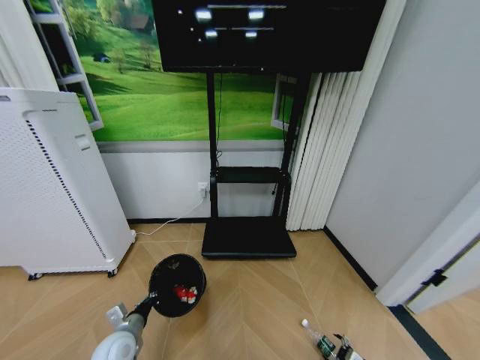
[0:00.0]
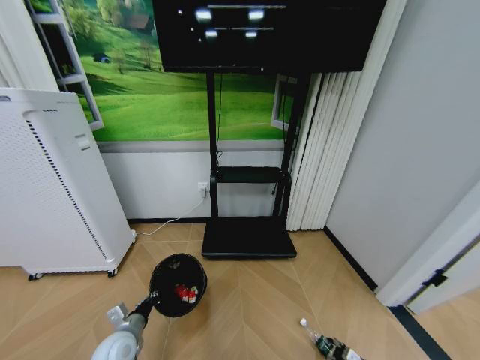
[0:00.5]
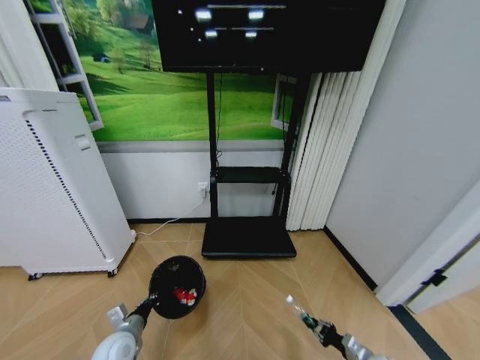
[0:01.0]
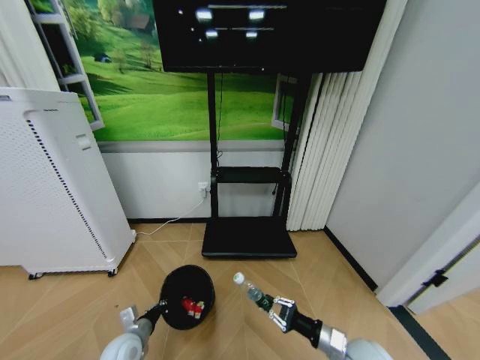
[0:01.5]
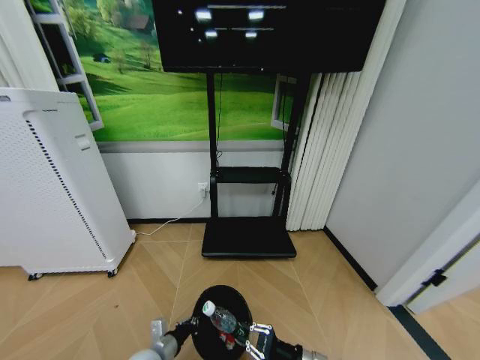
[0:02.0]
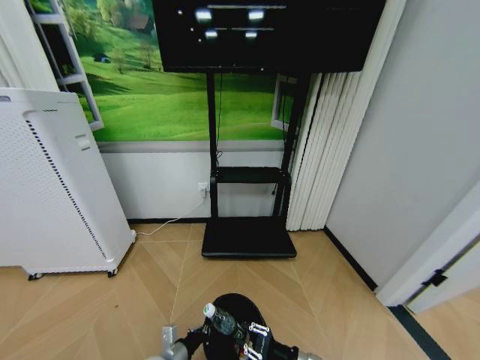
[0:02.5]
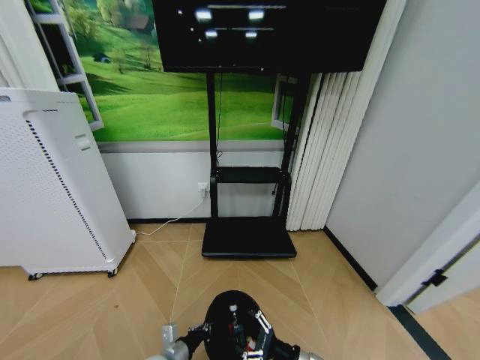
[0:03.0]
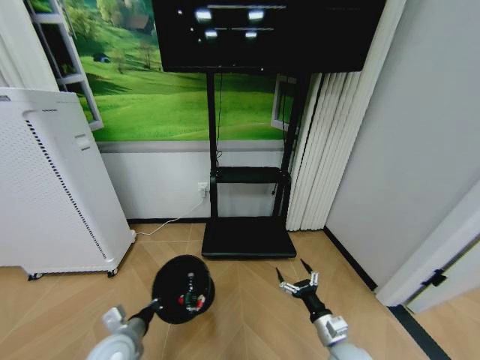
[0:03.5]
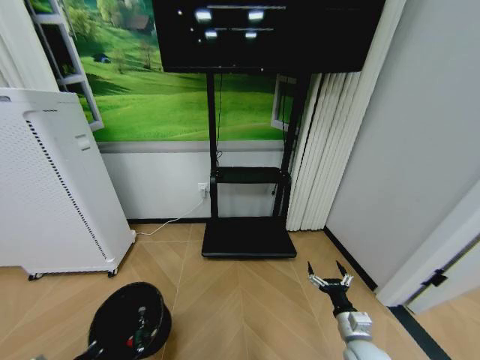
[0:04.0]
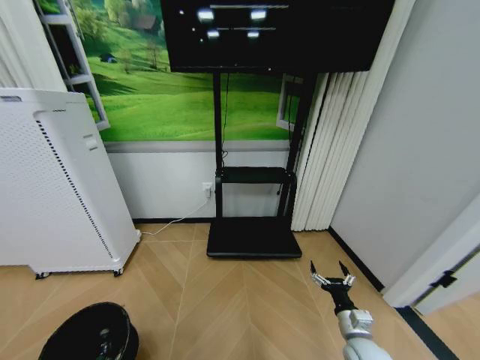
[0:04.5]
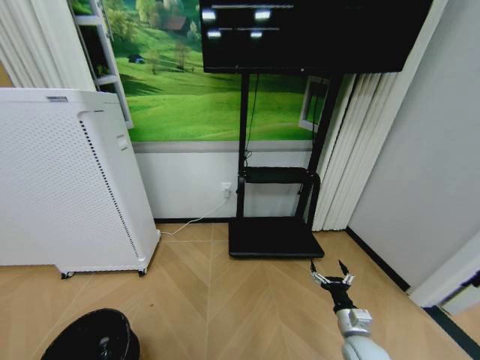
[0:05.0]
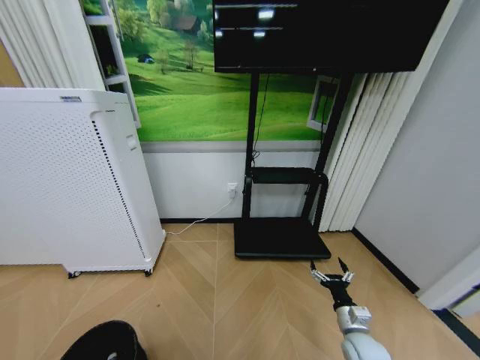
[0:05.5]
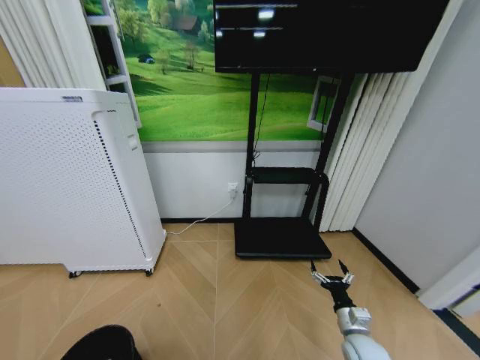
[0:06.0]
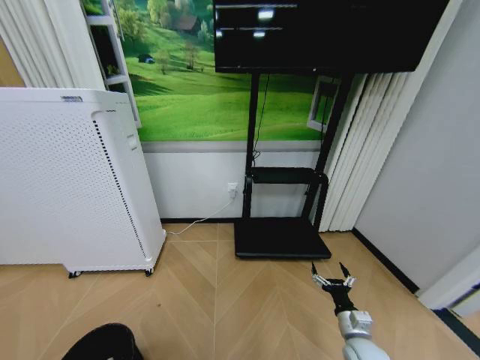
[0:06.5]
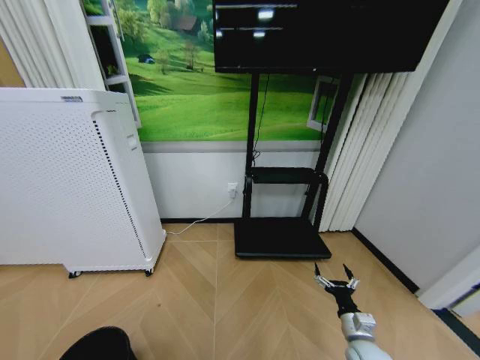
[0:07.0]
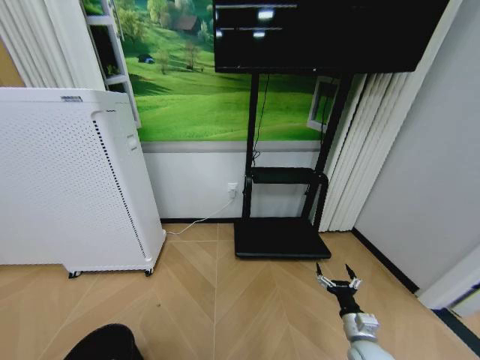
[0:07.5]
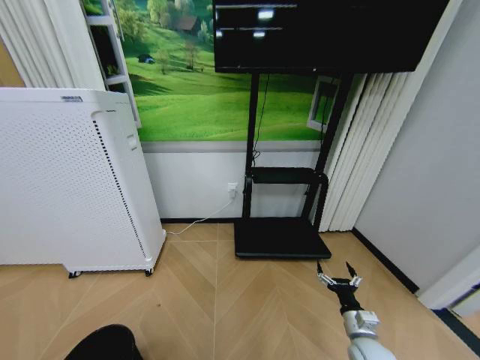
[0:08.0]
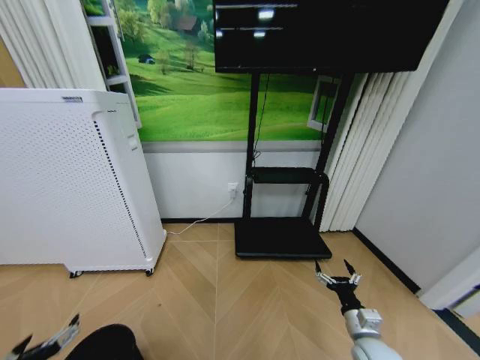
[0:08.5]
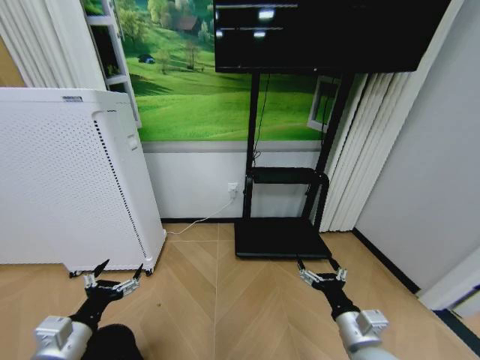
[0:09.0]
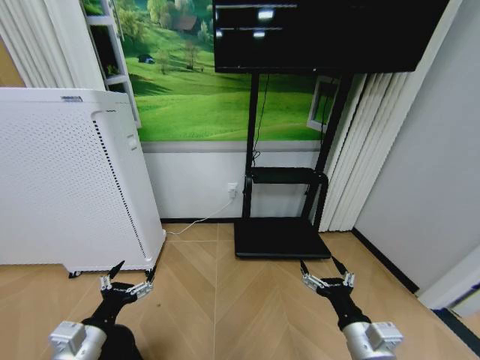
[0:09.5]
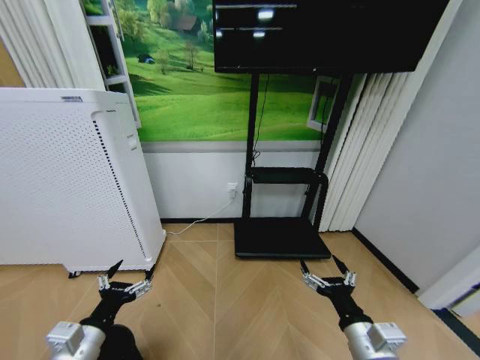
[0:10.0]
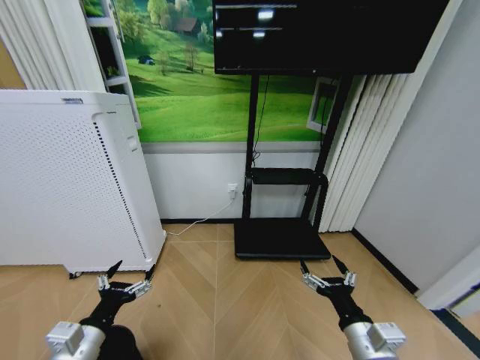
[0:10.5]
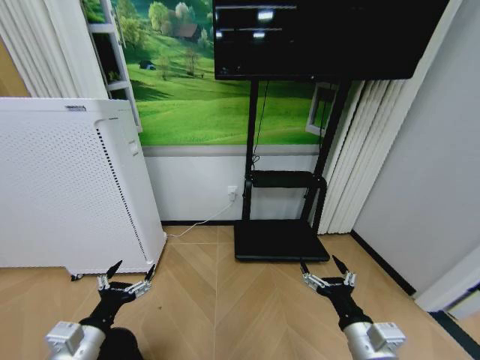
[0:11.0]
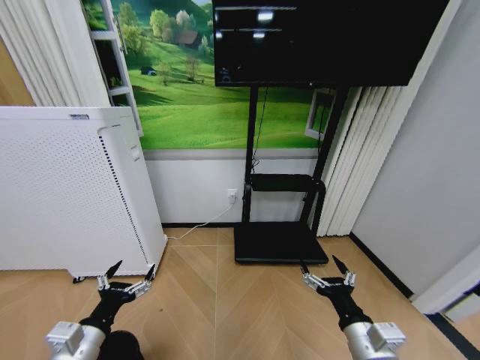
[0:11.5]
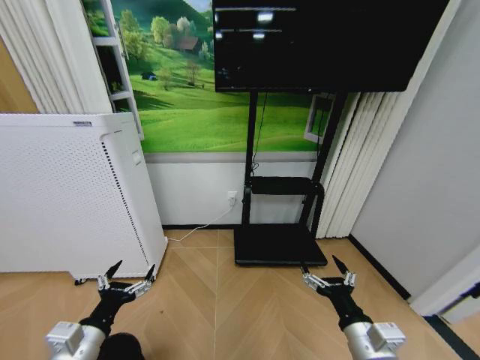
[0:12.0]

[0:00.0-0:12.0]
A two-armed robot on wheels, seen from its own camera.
Task of the whole recording: Pick up the trash bin and place the garbage on the floor into it.
0:00.0 to 0:02.0: The right gripper goes some 30 cm to the left and upward, and closes; the left gripper moves to the right, approximately 5 cm.
0:02.0 to 0:04.0: The right gripper goes about 10 cm to the right, and opens. The left gripper goes roughly 20 cm to the left, upward and backward.
0:04.0 to 0:06.0: The left gripper is displaced backward by roughly 10 cm.
0:08.0 to 0:10.0: The left gripper moves upward, to the right and forward, roughly 20 cm, and opens up, while the right gripper shifts about 20 cm upward, to the left and backward.
0:10.0 to 0:12.0: Both grippers stay put.

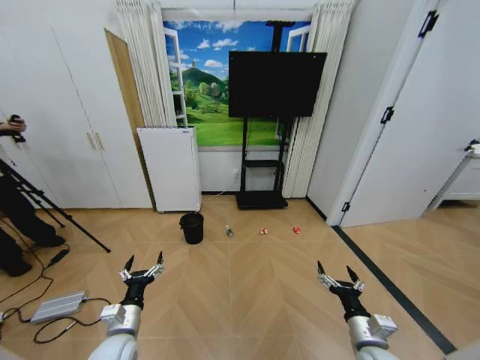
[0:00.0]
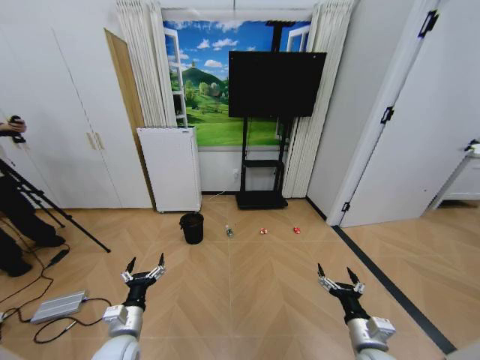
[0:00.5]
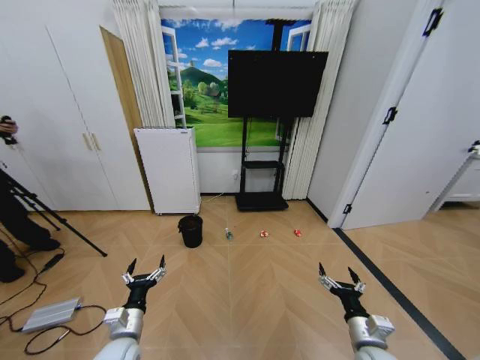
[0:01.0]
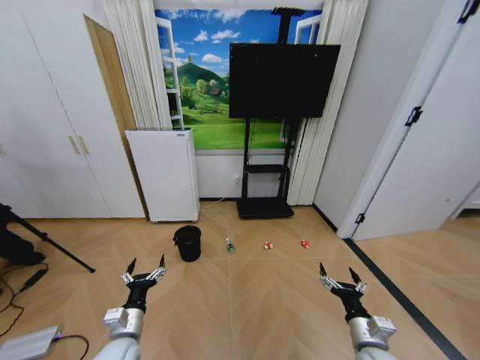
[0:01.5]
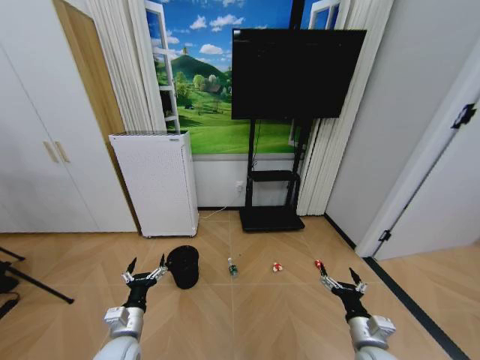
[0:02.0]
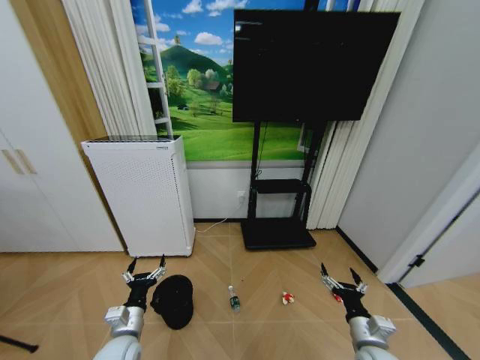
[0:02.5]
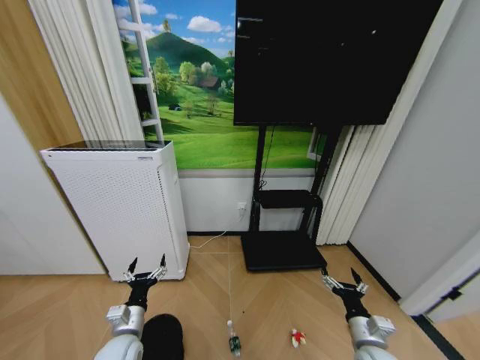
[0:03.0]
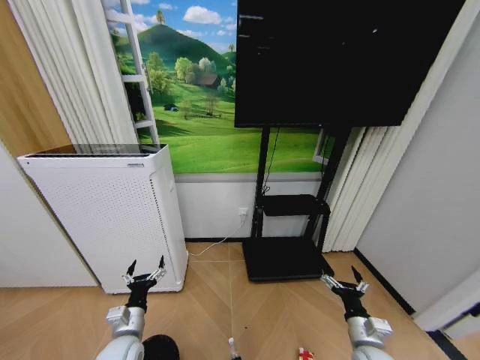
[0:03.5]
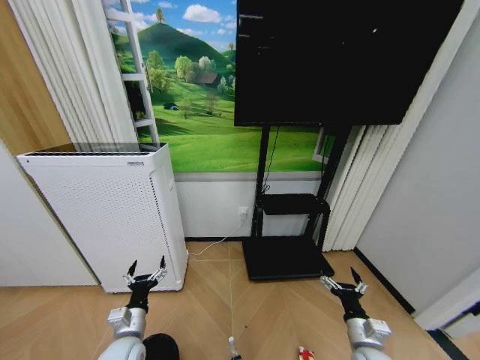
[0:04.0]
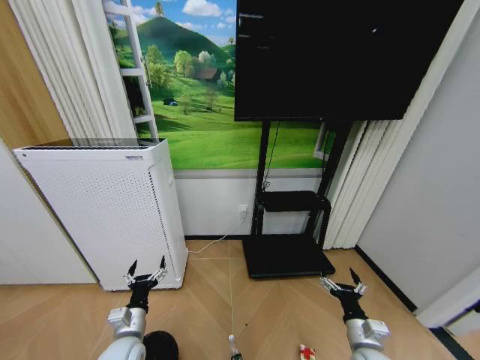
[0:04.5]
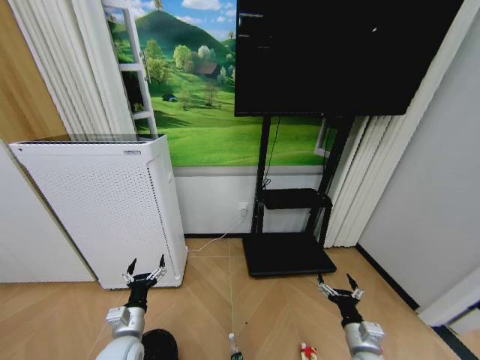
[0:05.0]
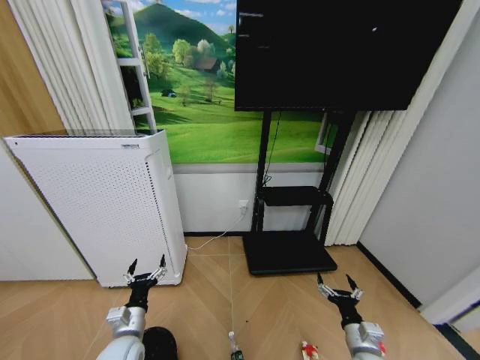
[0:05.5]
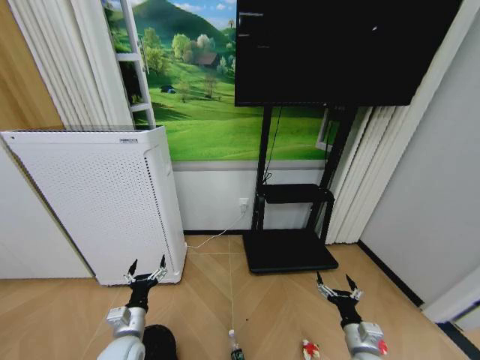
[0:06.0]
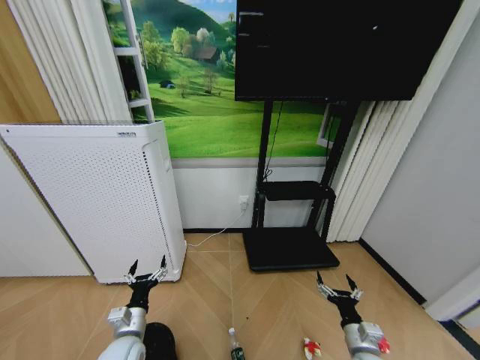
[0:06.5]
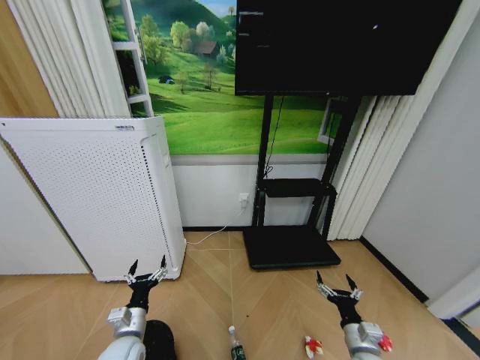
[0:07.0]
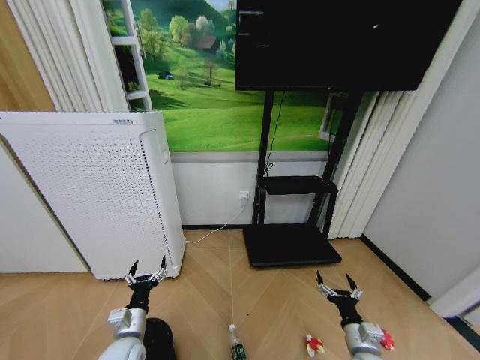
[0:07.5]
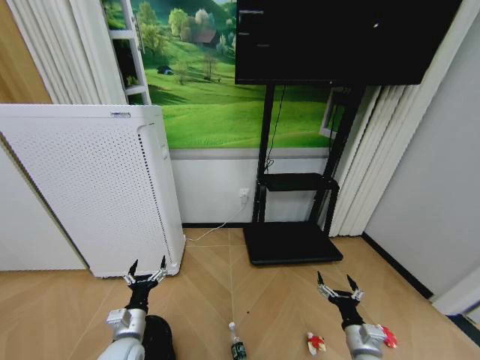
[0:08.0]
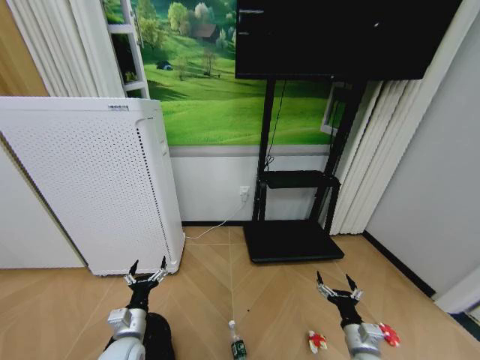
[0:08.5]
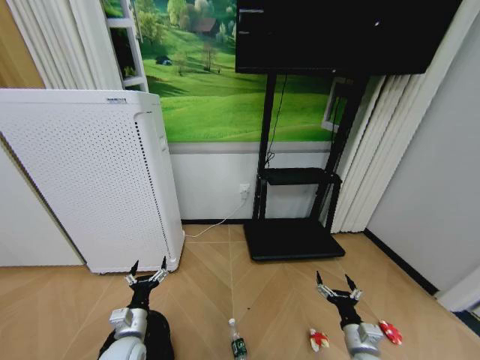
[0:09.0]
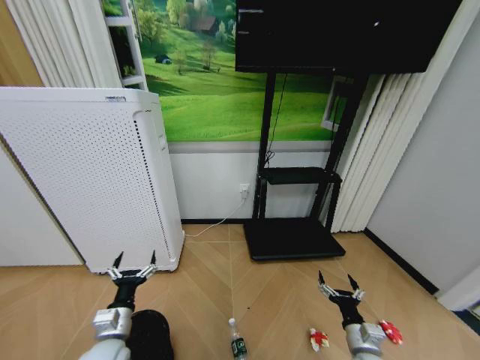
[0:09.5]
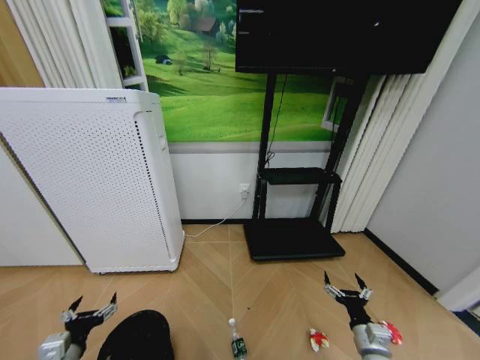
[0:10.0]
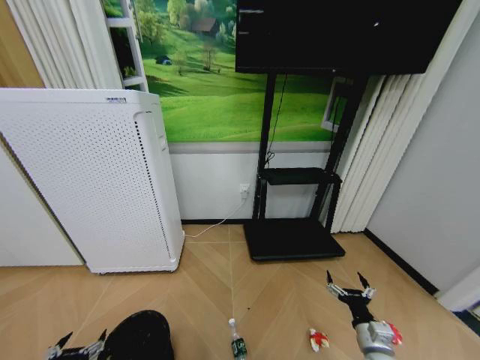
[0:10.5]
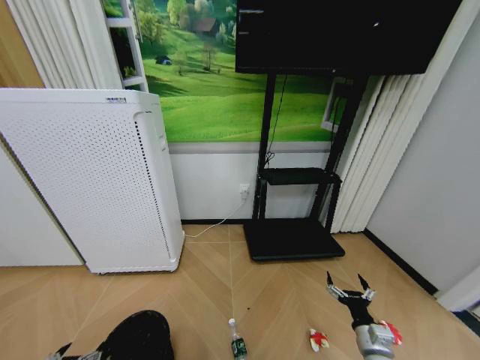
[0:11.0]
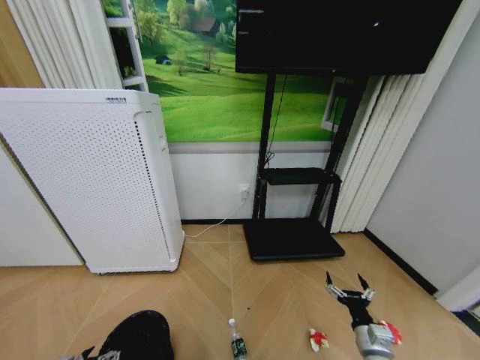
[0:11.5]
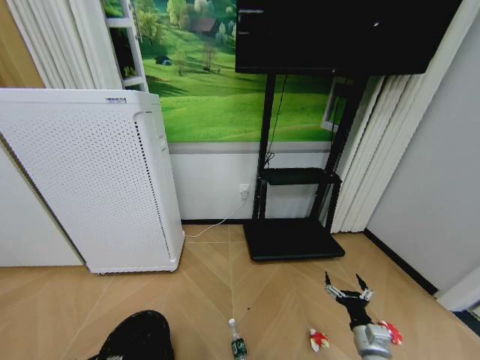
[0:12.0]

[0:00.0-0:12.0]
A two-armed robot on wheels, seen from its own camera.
Task of the whole recording: Pick up the trash bin and place the garbage on the floor into it.
0:06.0 to 0:08.0: The two grippers keep their place.
0:08.0 to 0:10.0: The left gripper is displaced to the left and backward by roughly 10 cm.
0:10.0 to 0:12.0: The left gripper moves downward, roughly 5 cm.

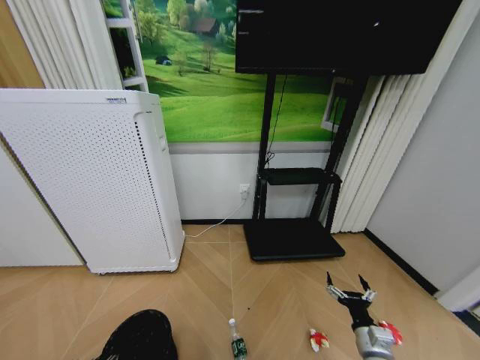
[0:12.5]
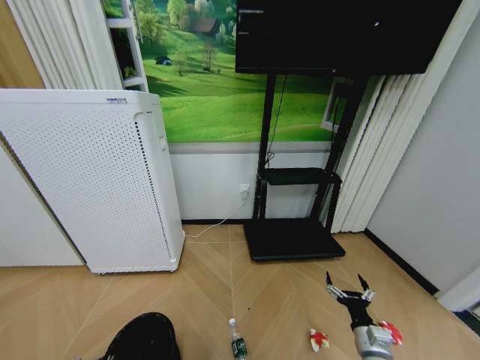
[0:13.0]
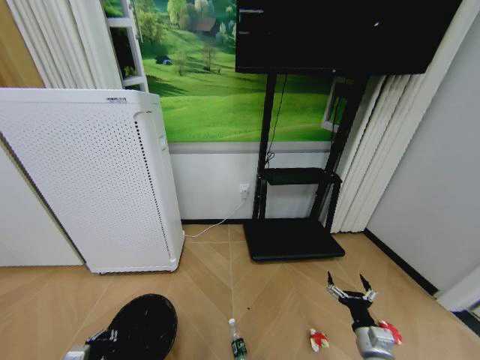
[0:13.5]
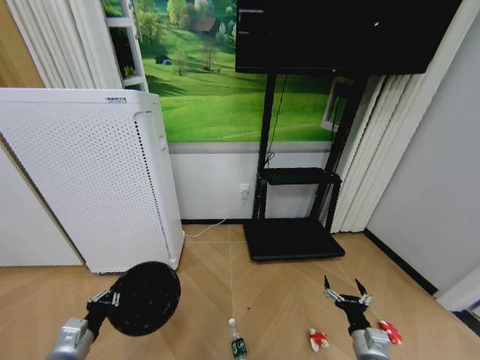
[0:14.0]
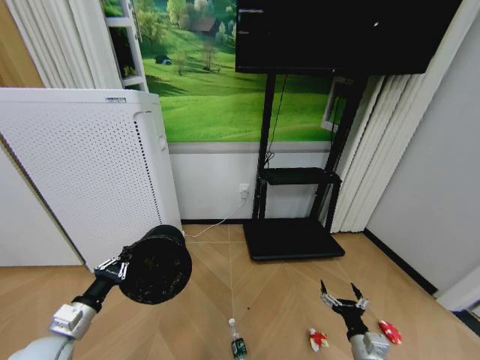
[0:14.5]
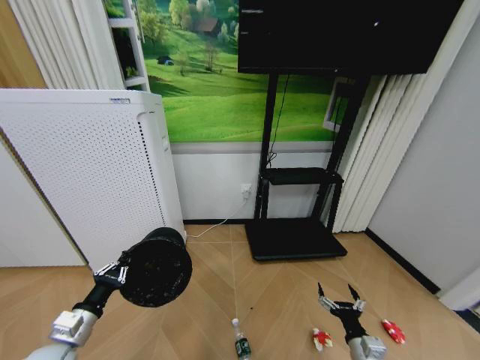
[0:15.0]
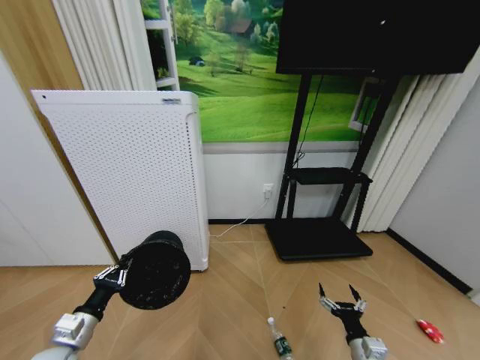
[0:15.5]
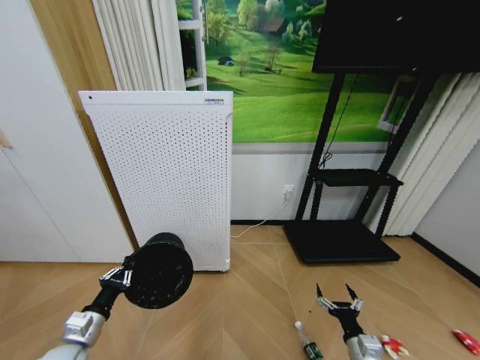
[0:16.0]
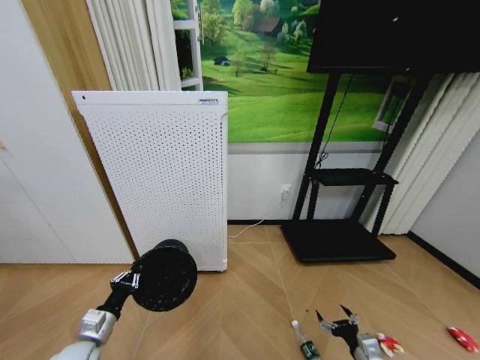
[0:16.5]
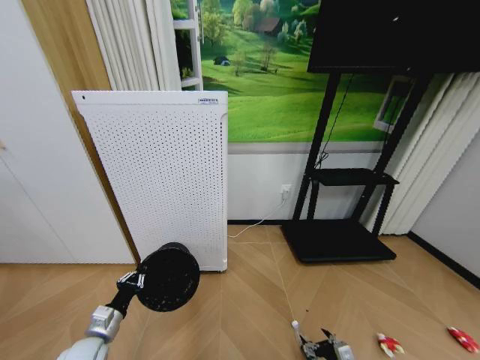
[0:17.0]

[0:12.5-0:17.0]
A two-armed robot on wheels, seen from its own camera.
Task of the whole recording: Pick up the trash bin and place the garbage on the floor into it.
0:12.5 to 0:14.5: The left gripper shifts some 15 cm upward and forward, and closes up.
0:14.5 to 0:17.0: Both grippers move downward, roughly 10 cm.
